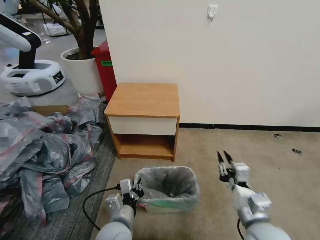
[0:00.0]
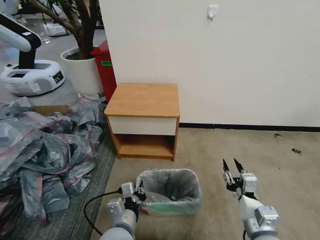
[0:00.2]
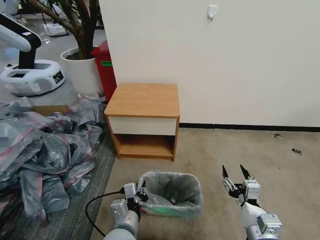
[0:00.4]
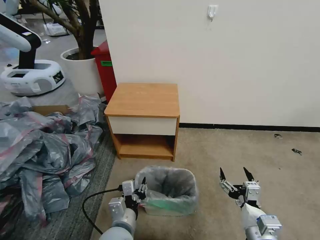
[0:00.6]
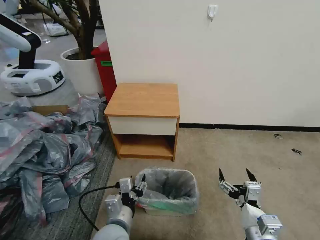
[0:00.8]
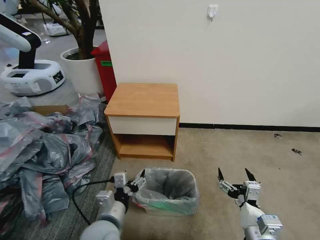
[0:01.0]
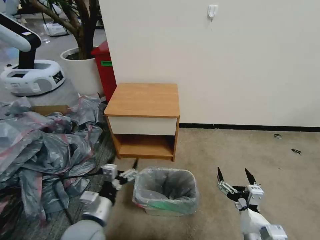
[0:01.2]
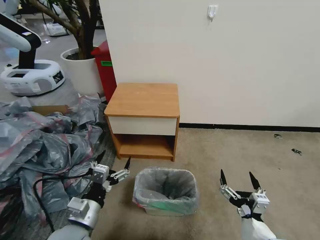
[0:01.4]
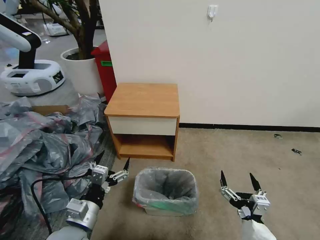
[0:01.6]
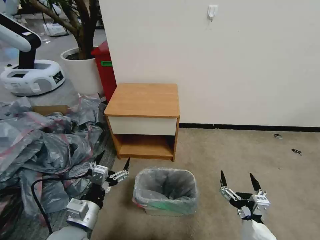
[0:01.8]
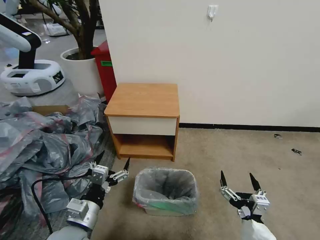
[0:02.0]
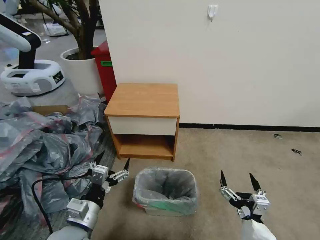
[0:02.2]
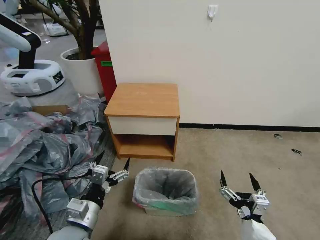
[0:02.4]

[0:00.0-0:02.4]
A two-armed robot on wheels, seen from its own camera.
Task of the whole recording: Pick up the garbage bag from the table and place it over the trash can.
0:00.0 to 0:01.2: The left gripper travels to the left by roughly 5 cm, and opens its fingers. The right gripper heads backward, covering approximately 5 cm, and opens up.
0:01.2 to 0:02.4: The grippers move only a little.
